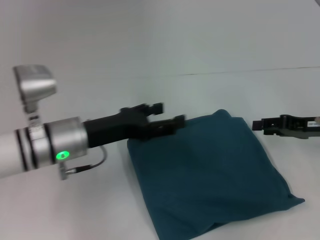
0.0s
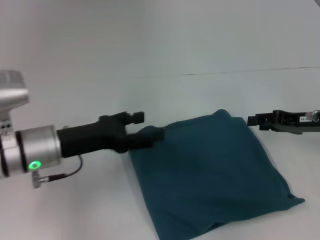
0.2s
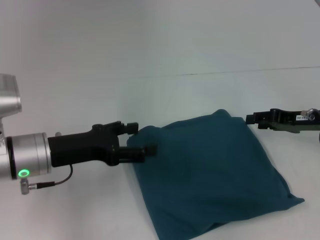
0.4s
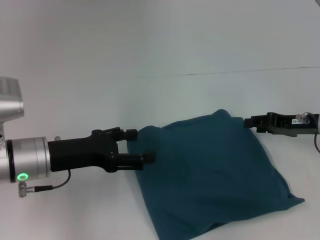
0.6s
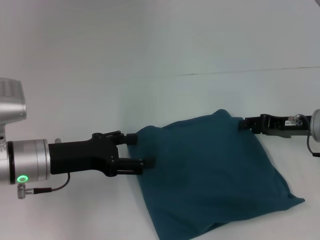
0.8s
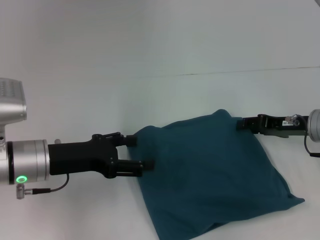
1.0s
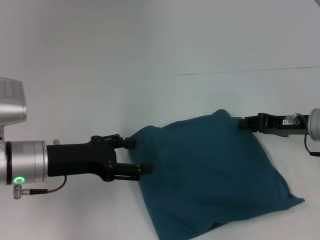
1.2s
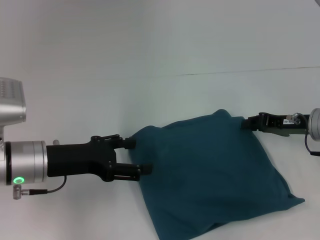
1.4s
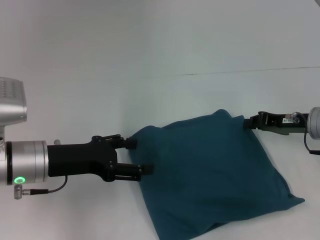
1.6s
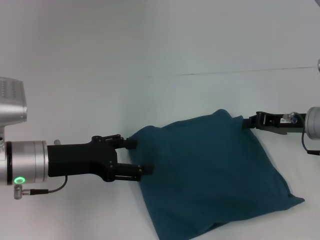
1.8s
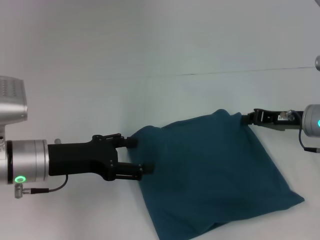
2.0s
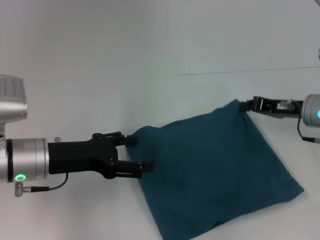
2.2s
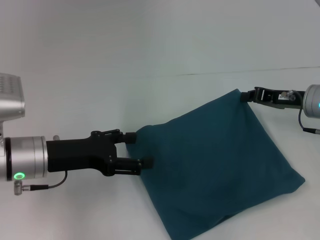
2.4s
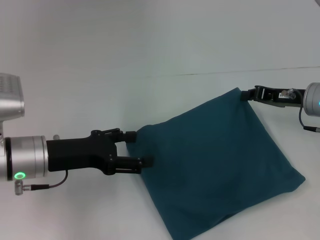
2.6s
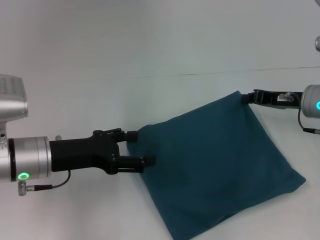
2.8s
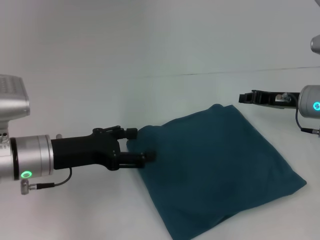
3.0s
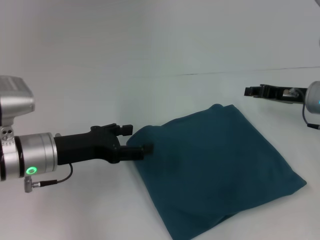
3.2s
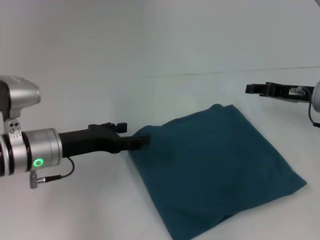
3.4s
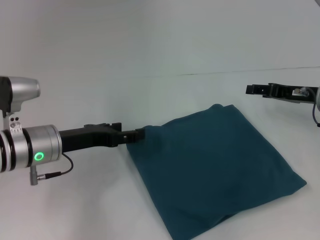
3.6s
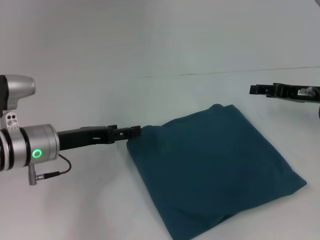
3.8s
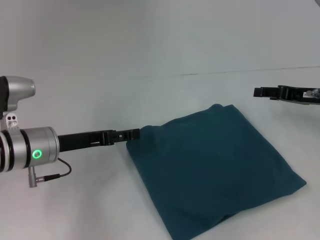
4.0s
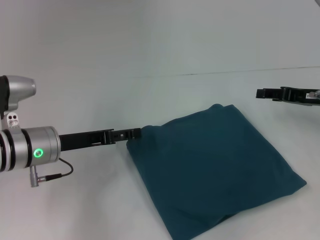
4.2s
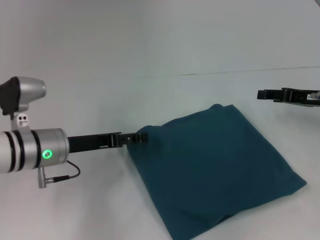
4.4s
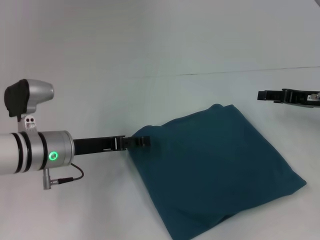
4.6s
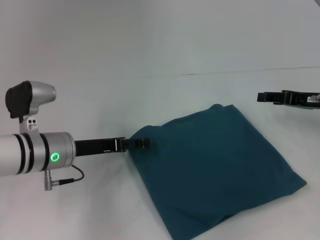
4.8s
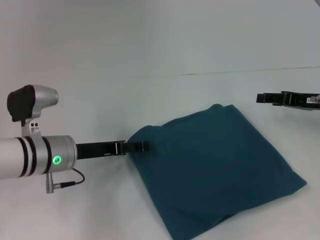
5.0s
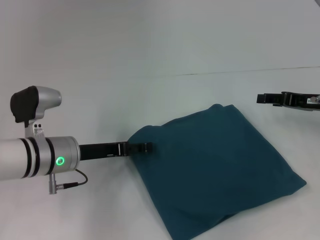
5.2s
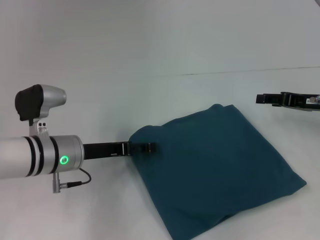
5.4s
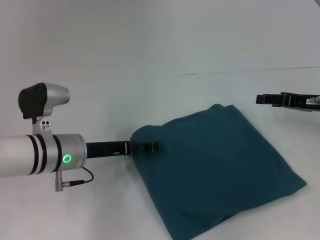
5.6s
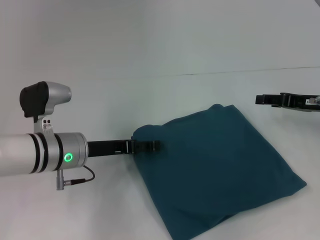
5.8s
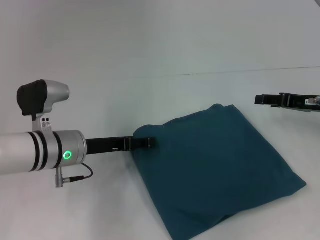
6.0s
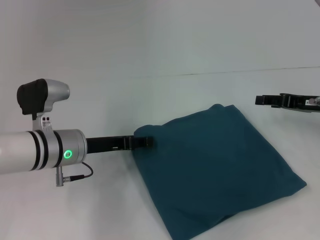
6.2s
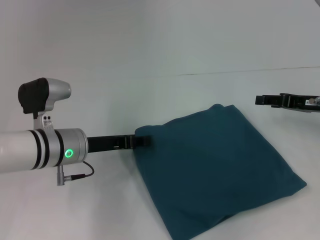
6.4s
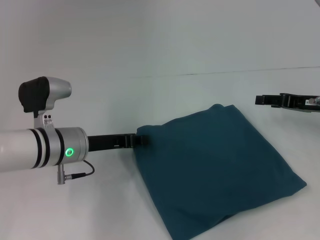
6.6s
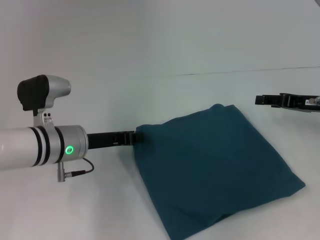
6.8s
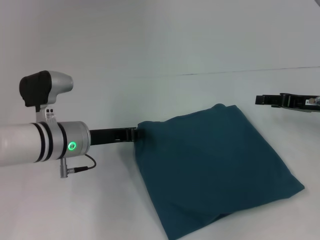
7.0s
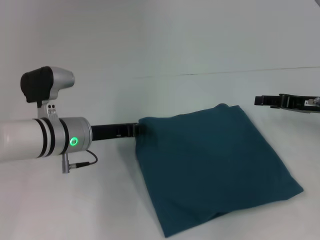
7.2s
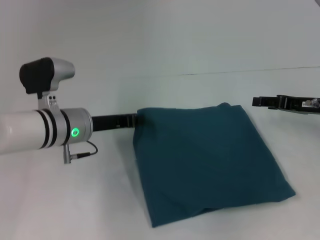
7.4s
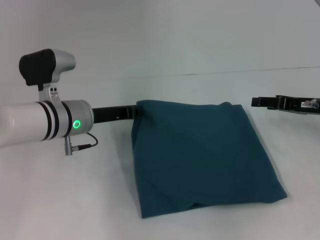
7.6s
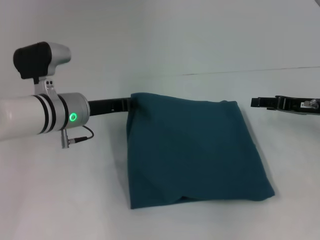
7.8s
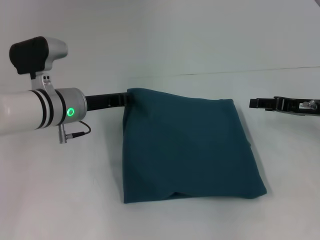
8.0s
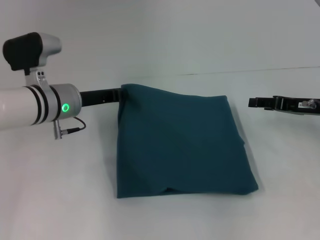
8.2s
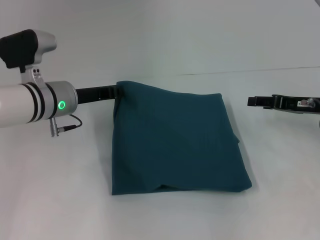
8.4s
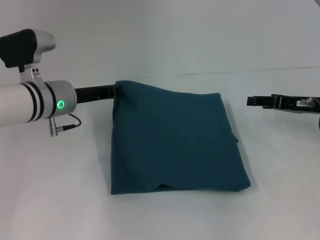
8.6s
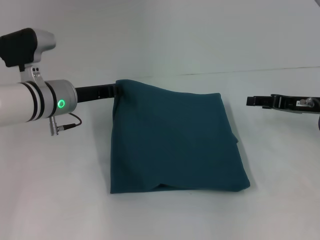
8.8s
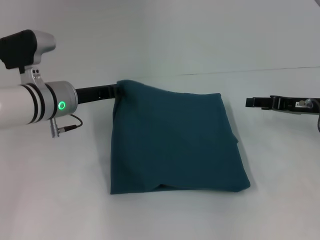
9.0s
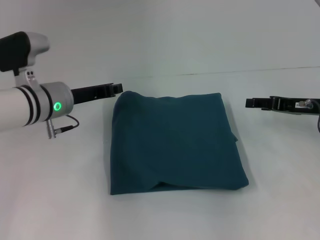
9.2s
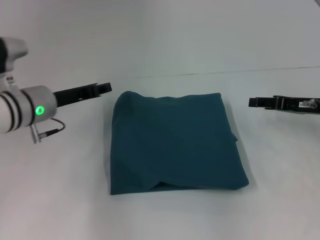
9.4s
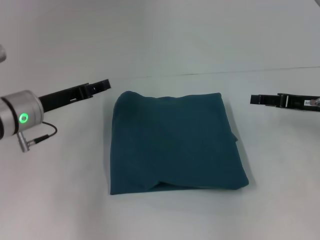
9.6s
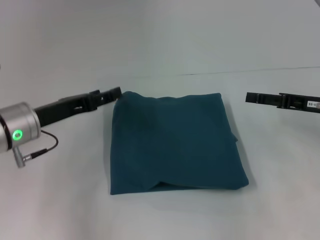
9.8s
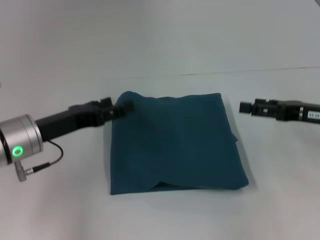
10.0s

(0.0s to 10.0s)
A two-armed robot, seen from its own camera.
0.0s - 1.4s: The left gripper travels to the left by roughly 5 cm.
1.4s - 2.8s: The right gripper closes up.
2.8s - 4.2s: The right gripper opens up.
4.2s - 5.8s: There are only small adjustments of the grippers.
5.8s - 7.2s: The left gripper closes.
7.2s - 8.6s: The left gripper moves about 5 cm.
8.6s - 10.0s: The left gripper heads backward, covering some 10 cm, and opens.

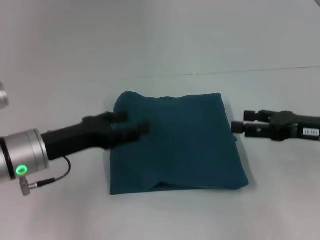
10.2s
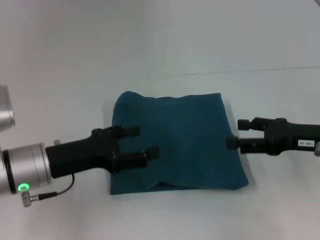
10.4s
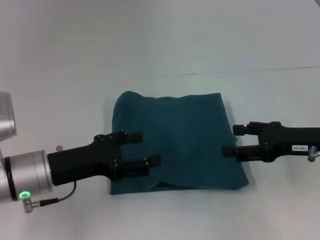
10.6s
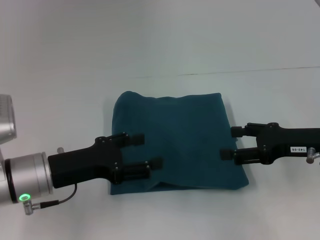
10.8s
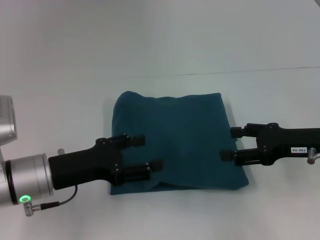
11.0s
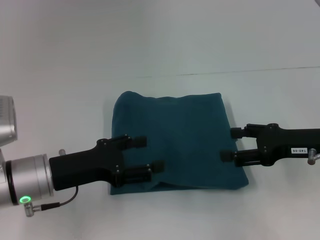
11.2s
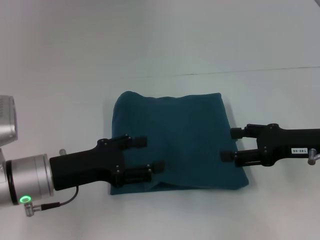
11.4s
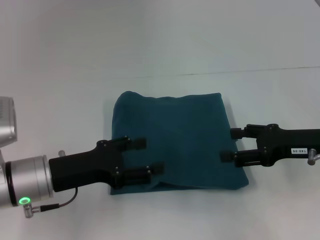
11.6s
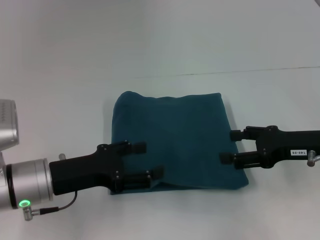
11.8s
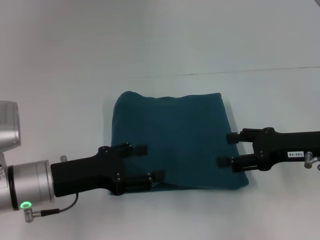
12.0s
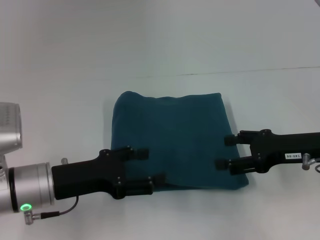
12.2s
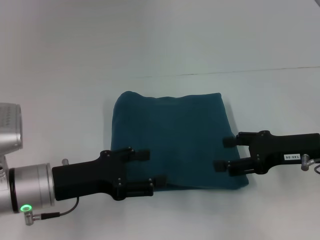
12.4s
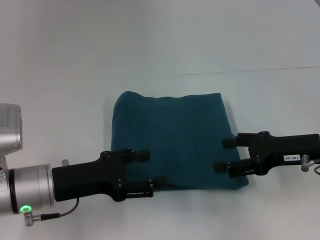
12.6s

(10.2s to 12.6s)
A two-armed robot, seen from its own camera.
10.2s - 11.4s: The grippers make only small movements.
11.4s - 12.6s: Both grippers stay about where they are.

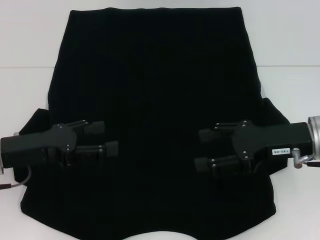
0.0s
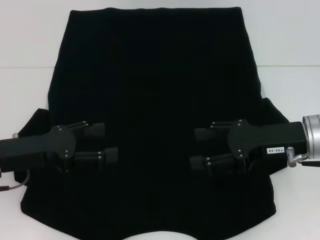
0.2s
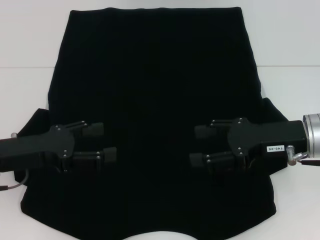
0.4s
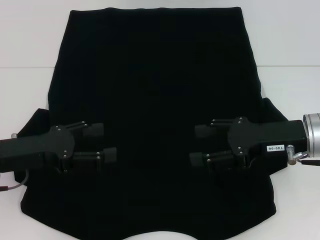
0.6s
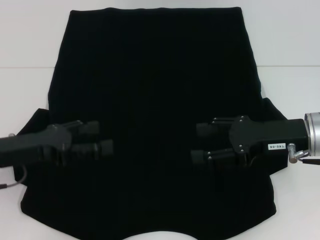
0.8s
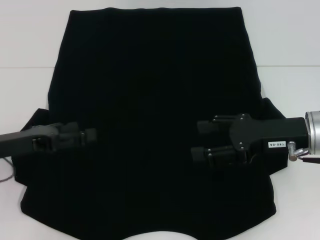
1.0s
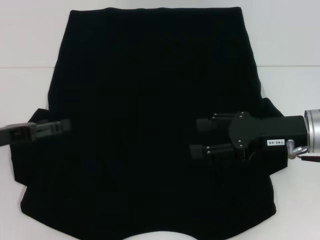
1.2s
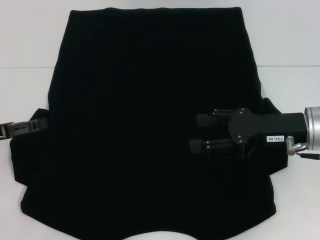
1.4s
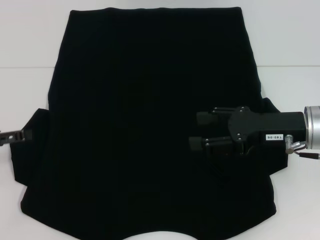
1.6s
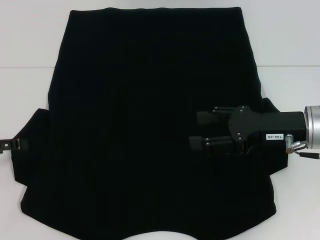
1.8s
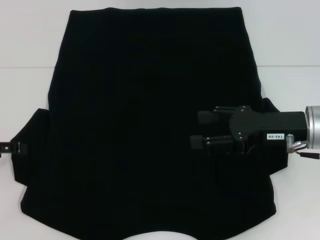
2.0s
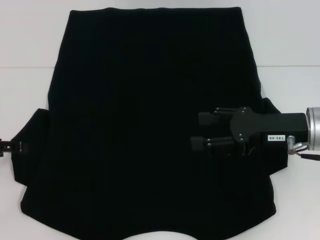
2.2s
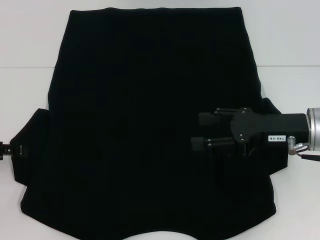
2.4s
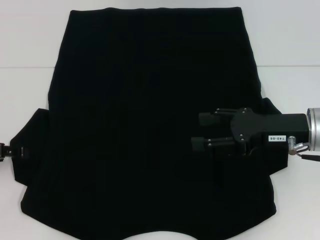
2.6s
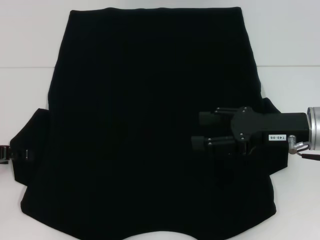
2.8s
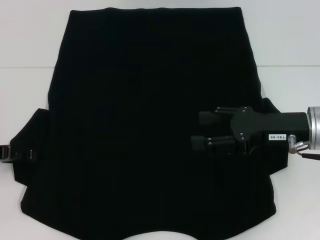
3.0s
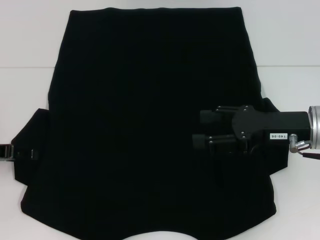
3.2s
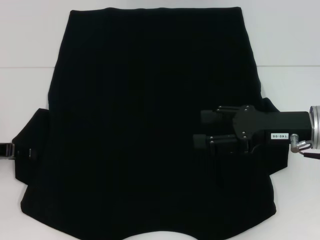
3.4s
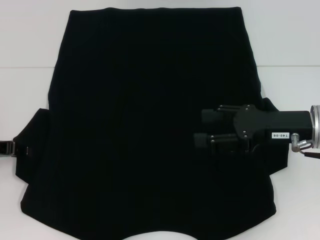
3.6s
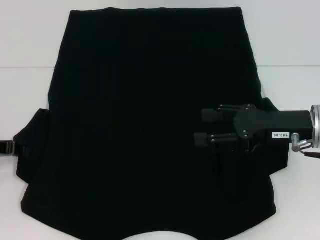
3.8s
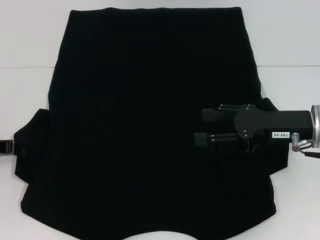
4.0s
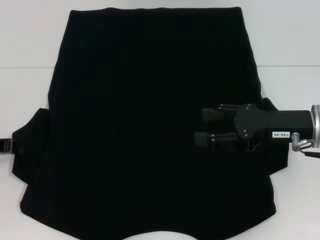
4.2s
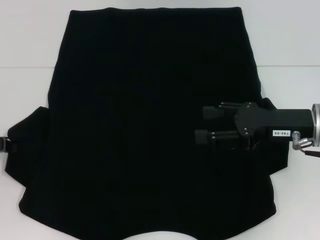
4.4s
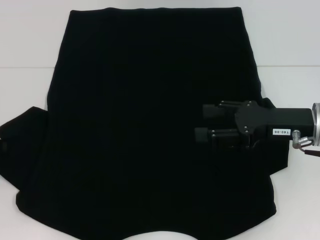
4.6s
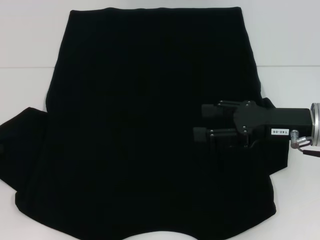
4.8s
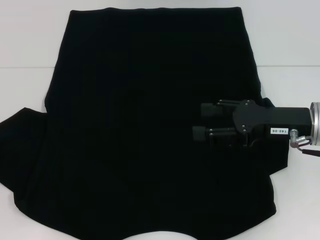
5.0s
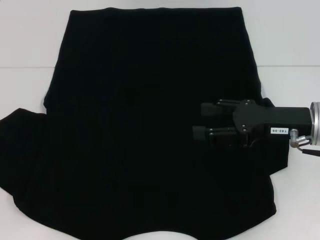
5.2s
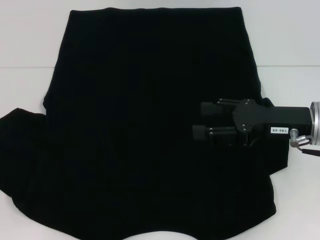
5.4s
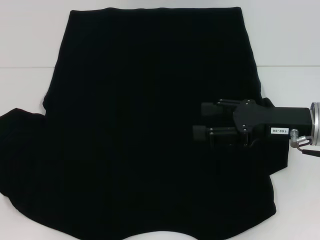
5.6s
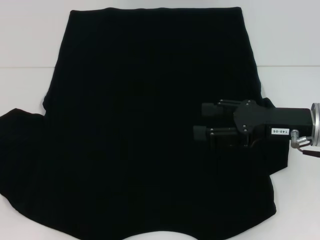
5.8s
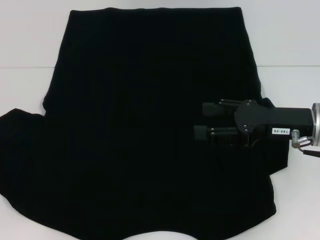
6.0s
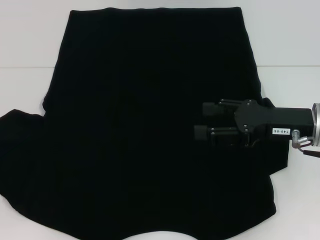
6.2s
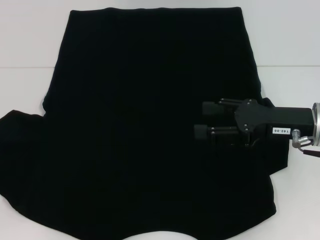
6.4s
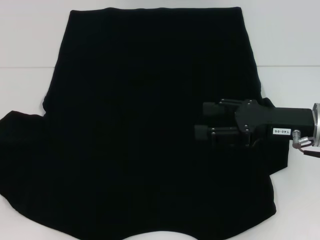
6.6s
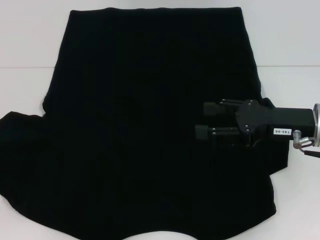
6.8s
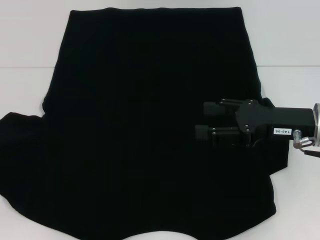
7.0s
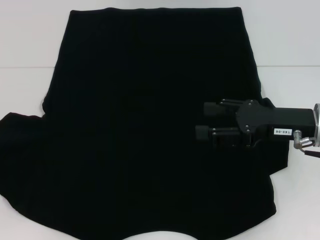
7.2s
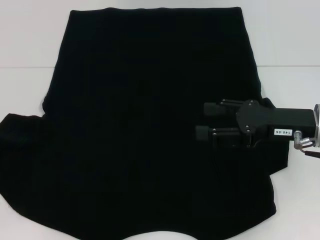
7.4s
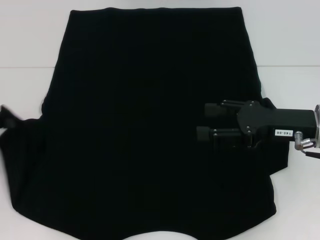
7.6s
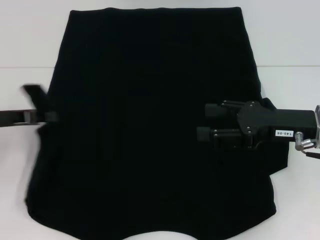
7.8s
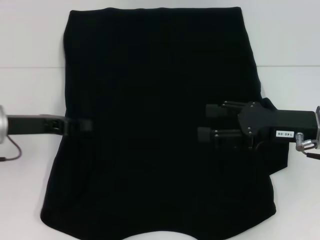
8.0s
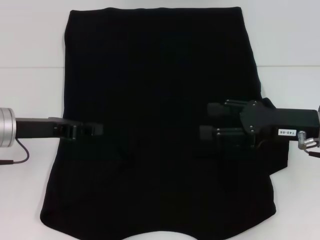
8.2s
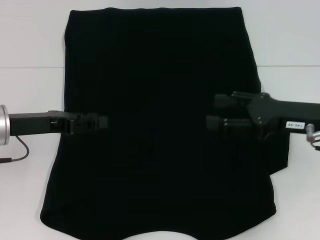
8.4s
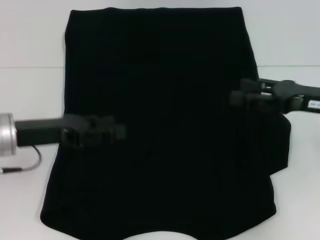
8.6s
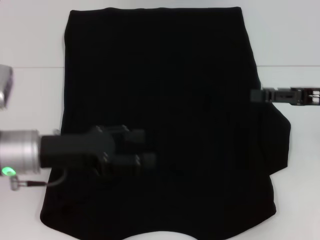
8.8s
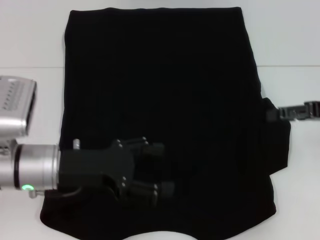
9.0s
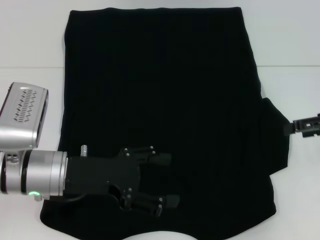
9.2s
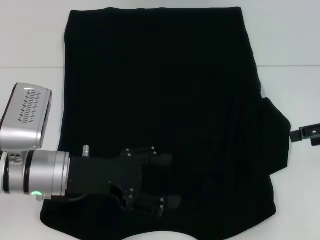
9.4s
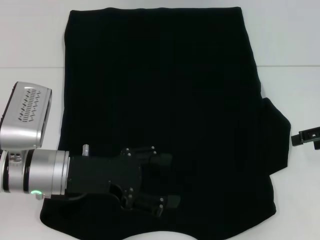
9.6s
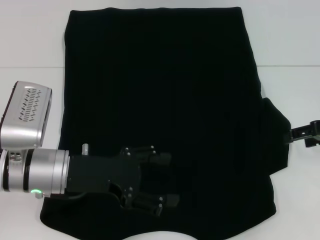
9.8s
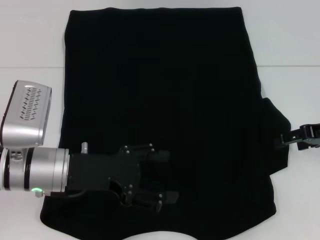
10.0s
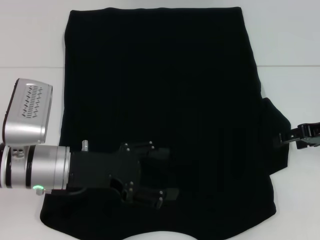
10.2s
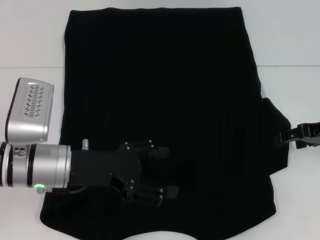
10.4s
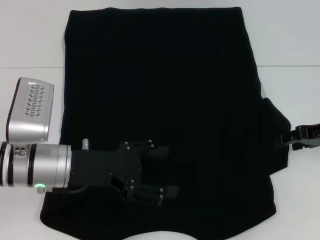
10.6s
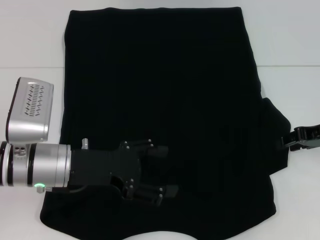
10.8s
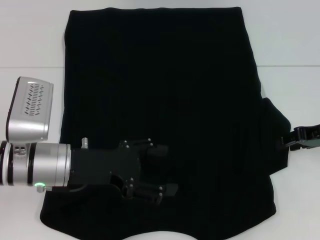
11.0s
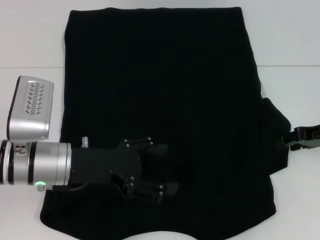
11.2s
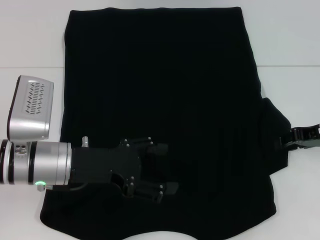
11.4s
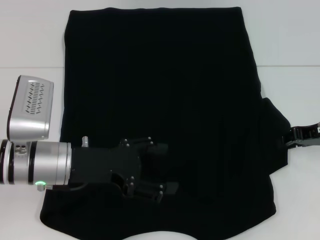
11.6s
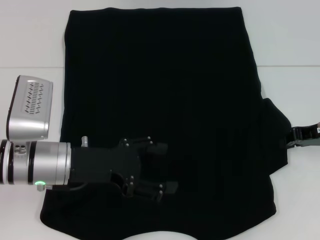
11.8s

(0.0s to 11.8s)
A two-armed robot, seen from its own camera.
Step, 0.0s - 7.8s: Fold the bottom left sleeve with your left hand.
0.0s - 1.4s: The left gripper is displaced to the left by some 10 cm.
3.0s - 4.4s: The left gripper closes its fingers.
4.4s - 6.0s: The grippers move only a little.
6.0s - 7.4s: Neither gripper changes place.
7.4s - 8.8s: The right gripper heads to the right, covering about 5 cm. Meanwhile the left gripper goes some 15 cm to the right, and opens.
8.8s - 10.4s: The left gripper opens.
10.4s - 11.8s: The right gripper closes up.
